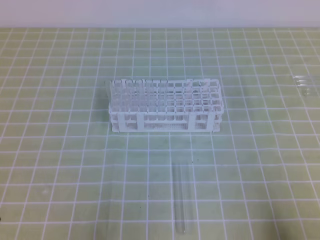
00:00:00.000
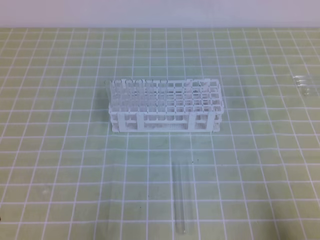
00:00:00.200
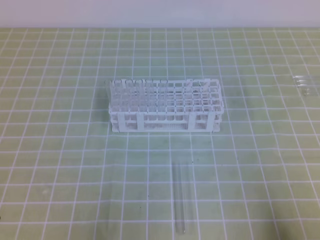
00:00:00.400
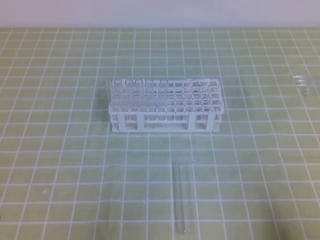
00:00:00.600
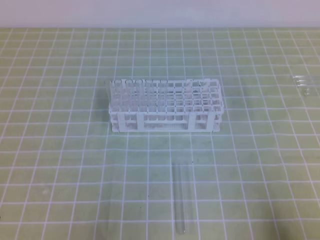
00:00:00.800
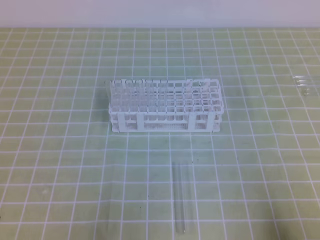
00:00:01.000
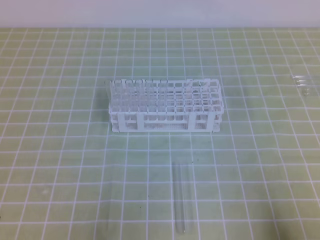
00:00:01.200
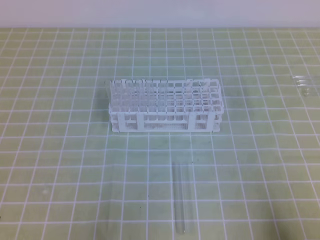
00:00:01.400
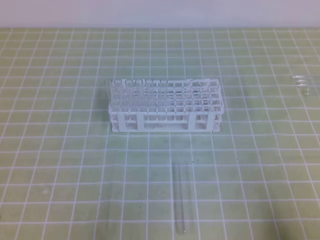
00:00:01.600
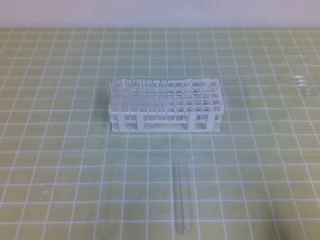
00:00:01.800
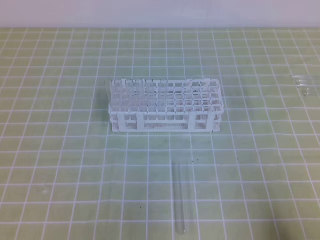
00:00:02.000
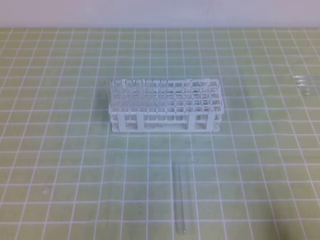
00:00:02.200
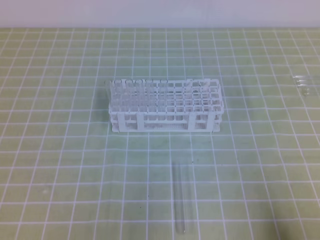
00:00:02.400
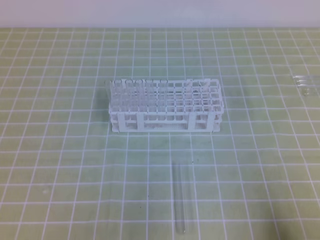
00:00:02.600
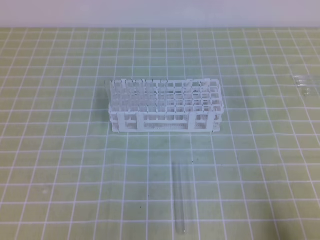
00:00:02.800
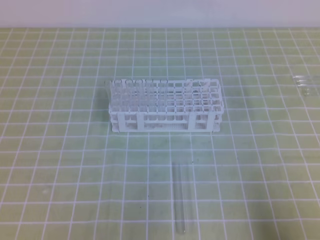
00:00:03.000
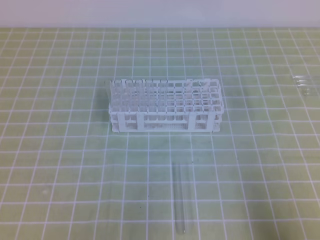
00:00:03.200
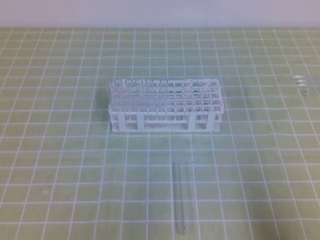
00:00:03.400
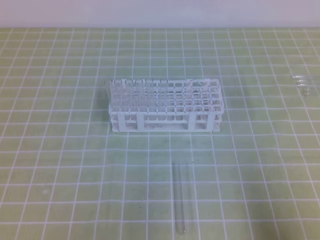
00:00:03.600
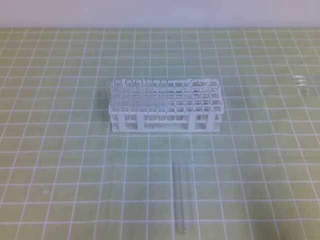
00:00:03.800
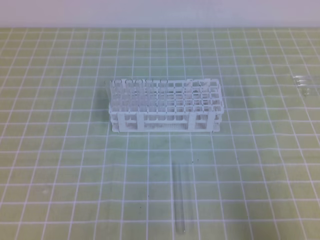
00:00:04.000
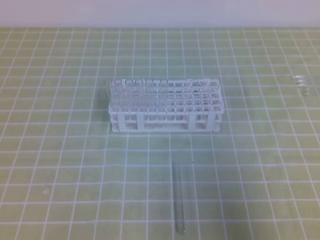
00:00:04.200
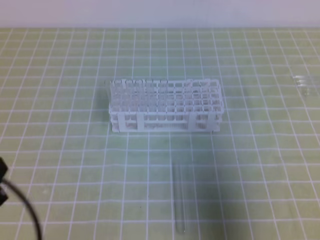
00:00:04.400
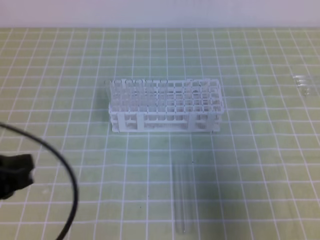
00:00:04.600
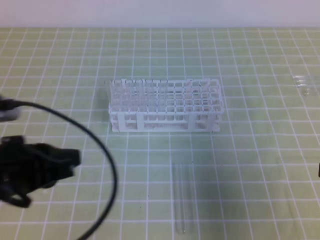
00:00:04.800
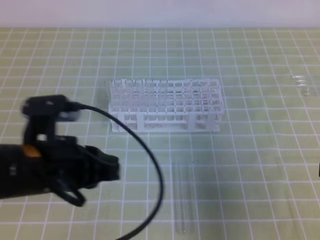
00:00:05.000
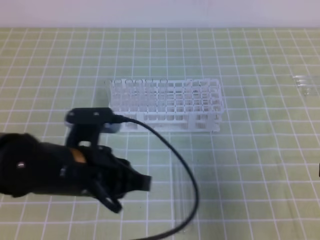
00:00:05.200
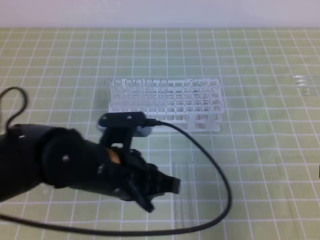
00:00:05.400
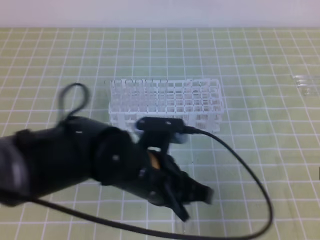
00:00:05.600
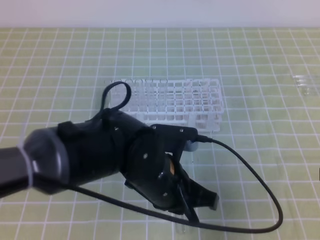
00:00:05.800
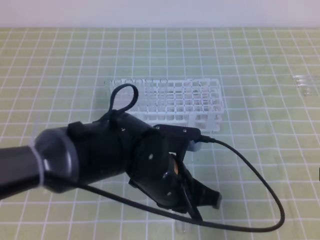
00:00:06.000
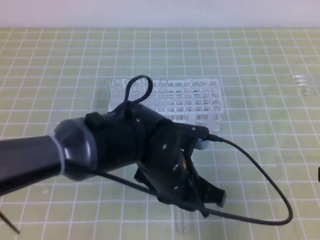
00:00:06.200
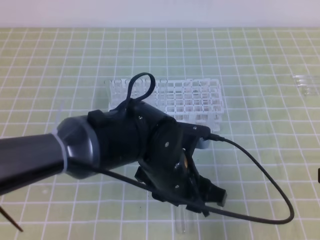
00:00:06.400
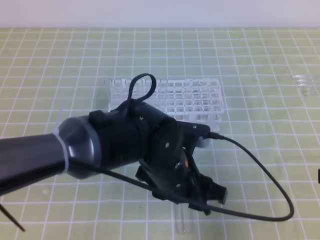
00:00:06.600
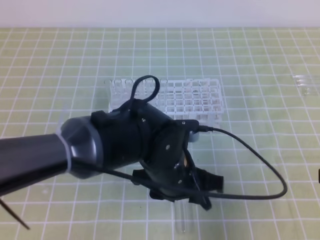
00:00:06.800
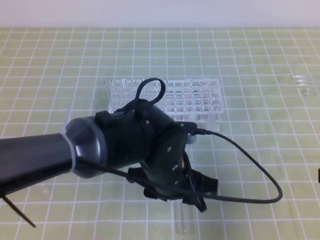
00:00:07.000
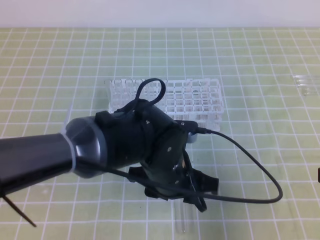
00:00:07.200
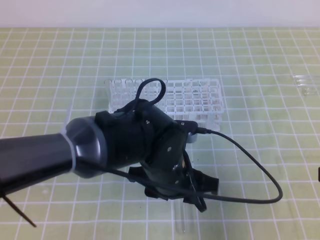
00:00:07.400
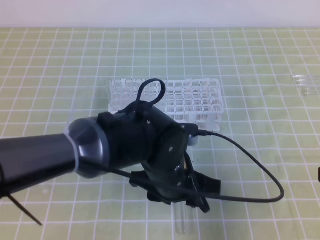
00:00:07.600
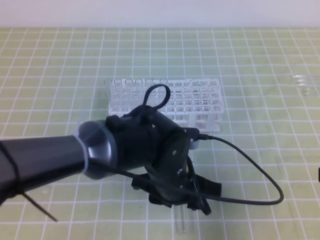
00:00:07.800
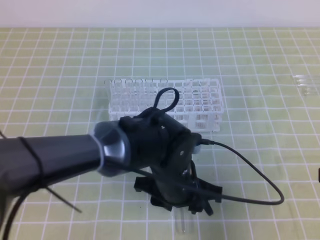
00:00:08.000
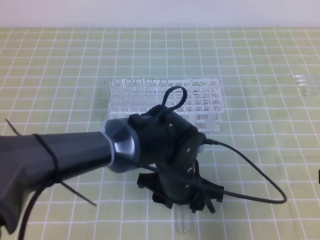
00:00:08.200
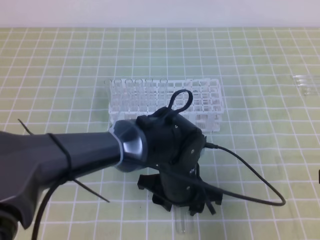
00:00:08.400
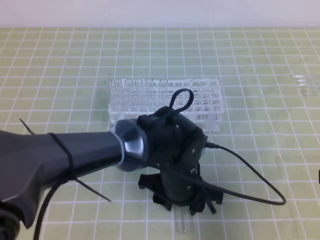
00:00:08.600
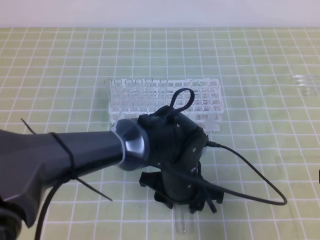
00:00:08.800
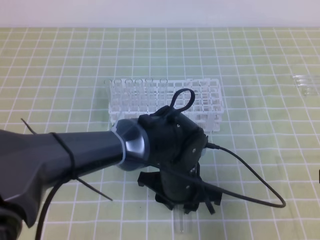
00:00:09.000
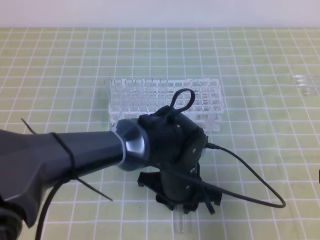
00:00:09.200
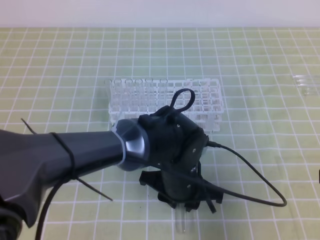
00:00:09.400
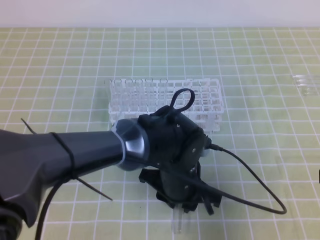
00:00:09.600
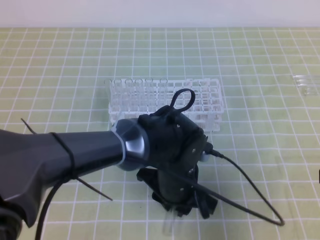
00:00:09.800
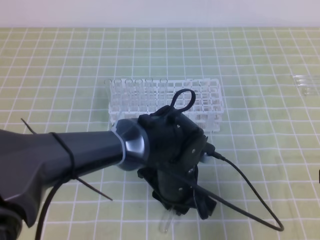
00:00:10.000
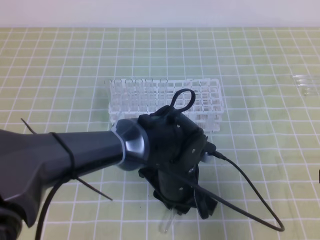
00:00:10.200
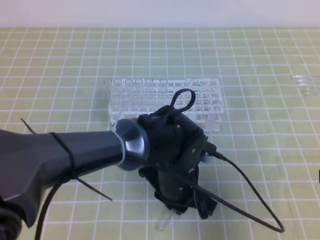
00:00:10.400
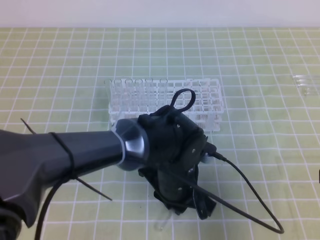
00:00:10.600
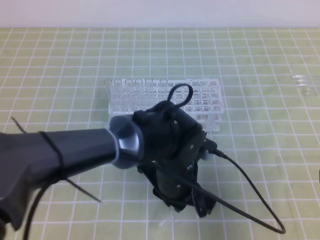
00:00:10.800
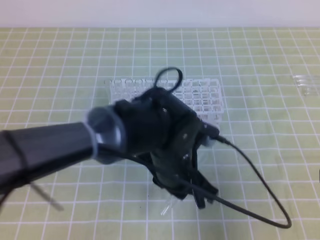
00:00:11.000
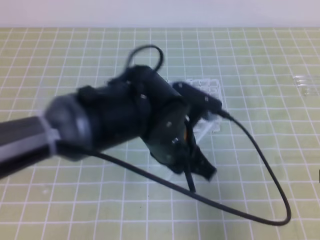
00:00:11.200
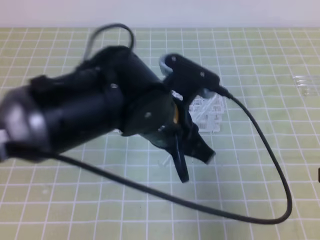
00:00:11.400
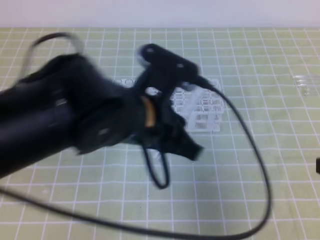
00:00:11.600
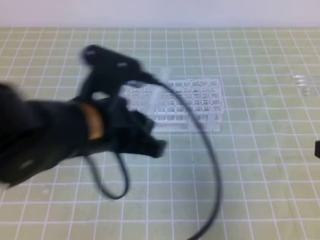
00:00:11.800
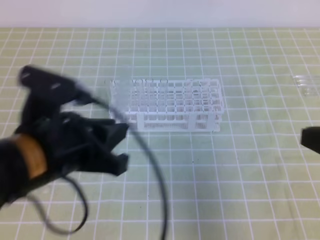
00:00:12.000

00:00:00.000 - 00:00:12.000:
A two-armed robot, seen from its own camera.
00:00:00.000 - 00:00:01.600: The two grippers keep their place.
00:00:03.000 - 00:00:04.400: The left gripper travels upward by approximately 5 cm; the right gripper goes some 10 cm upward and forward.
00:00:04.400 - 00:00:06.000: The left gripper goes some 30 cm to the right and forward.
00:00:06.000 - 00:00:07.600: The left gripper opens up.
00:00:07.600 - 00:00:09.000: There are only small adjustments of the grippers.
00:00:09.000 - 00:00:10.400: The left gripper closes.
00:00:10.400 - 00:00:12.000: The left gripper travels to the left, upward and backward by about 20 cm.

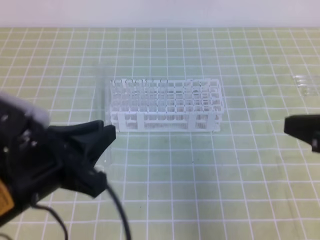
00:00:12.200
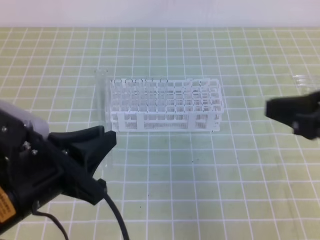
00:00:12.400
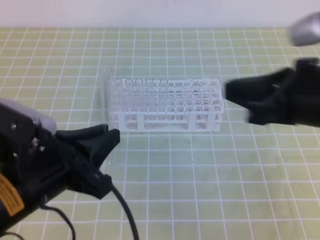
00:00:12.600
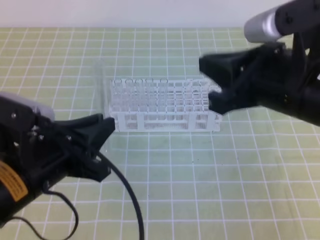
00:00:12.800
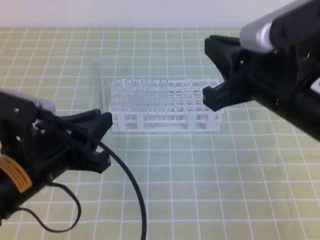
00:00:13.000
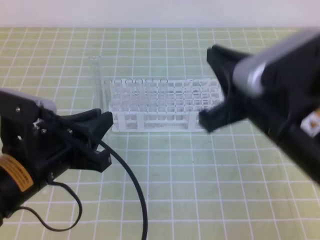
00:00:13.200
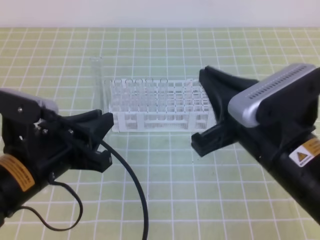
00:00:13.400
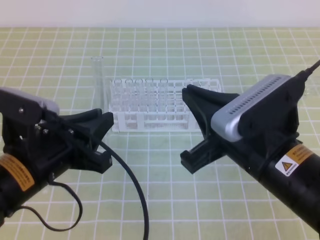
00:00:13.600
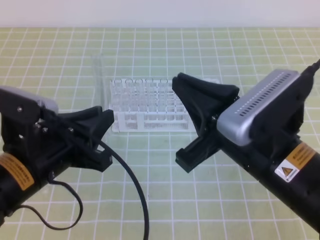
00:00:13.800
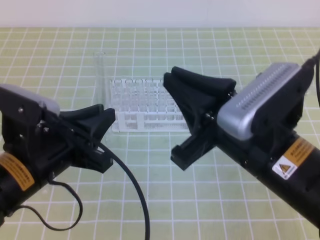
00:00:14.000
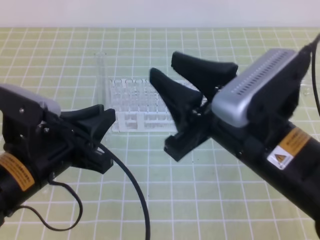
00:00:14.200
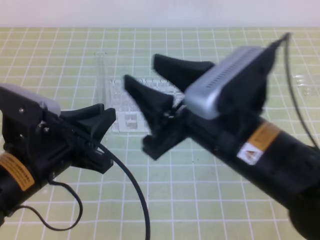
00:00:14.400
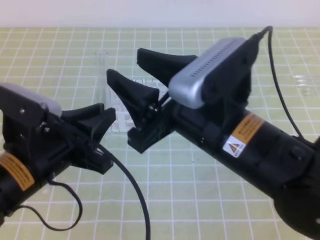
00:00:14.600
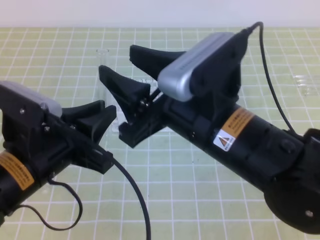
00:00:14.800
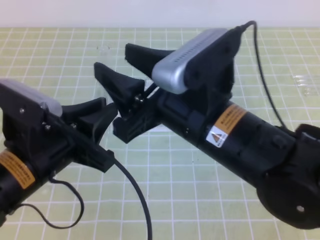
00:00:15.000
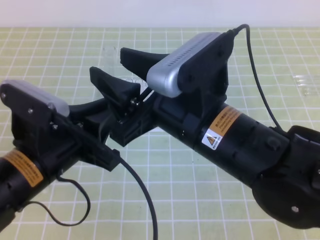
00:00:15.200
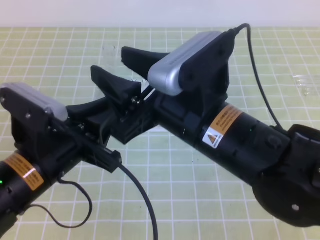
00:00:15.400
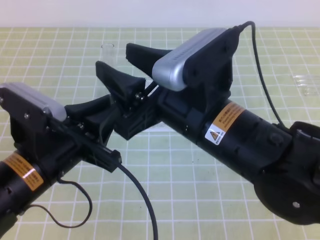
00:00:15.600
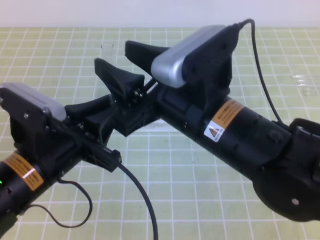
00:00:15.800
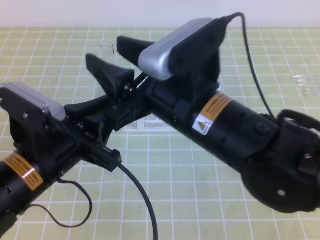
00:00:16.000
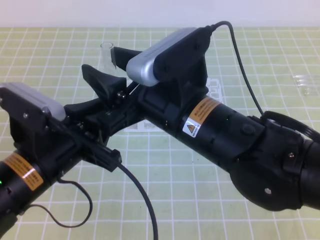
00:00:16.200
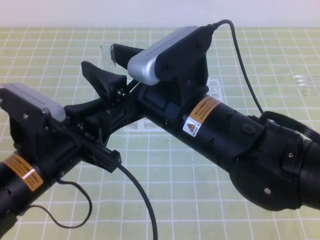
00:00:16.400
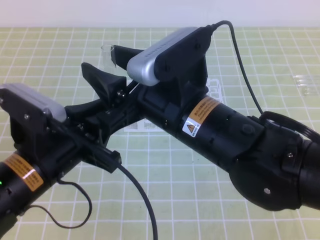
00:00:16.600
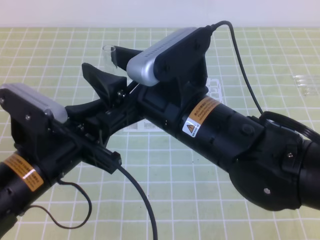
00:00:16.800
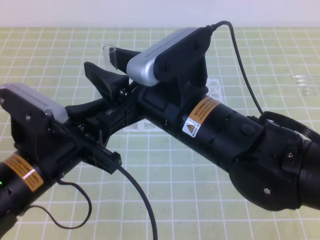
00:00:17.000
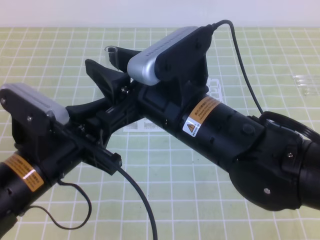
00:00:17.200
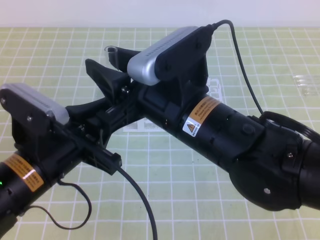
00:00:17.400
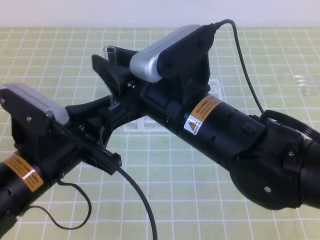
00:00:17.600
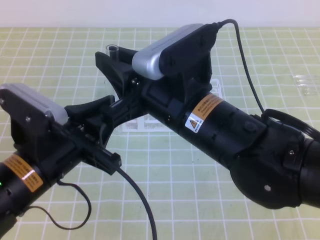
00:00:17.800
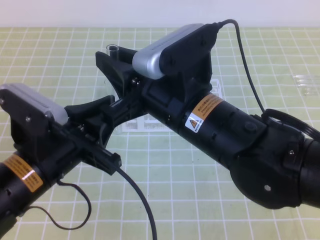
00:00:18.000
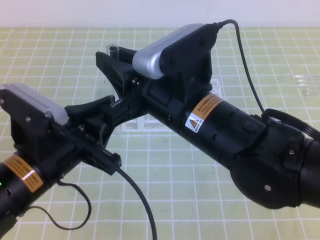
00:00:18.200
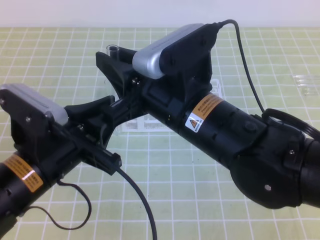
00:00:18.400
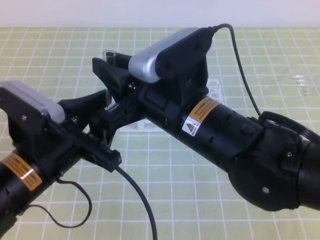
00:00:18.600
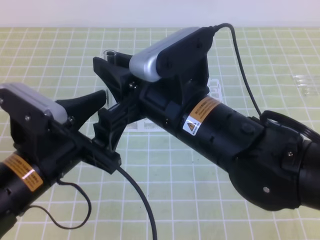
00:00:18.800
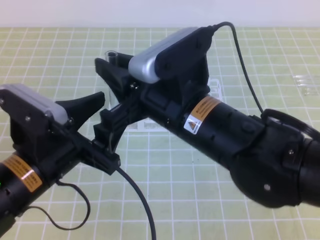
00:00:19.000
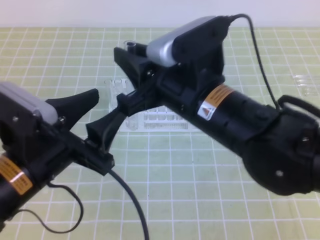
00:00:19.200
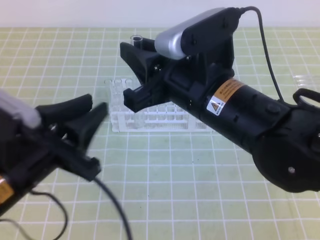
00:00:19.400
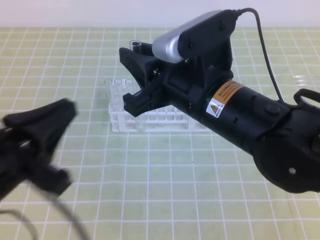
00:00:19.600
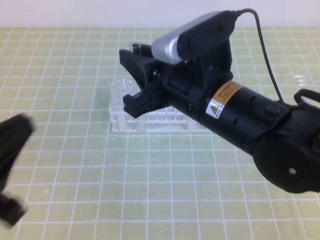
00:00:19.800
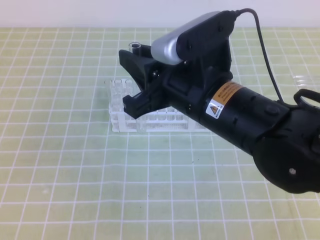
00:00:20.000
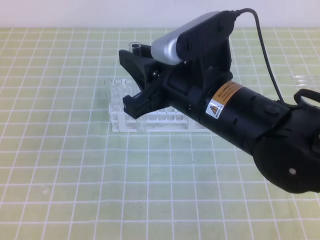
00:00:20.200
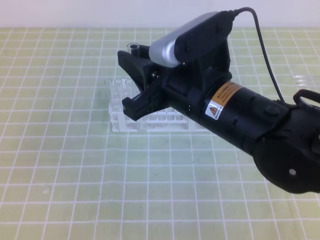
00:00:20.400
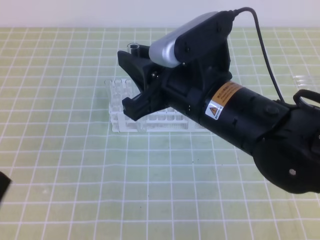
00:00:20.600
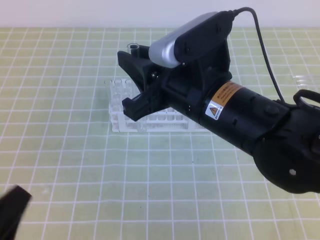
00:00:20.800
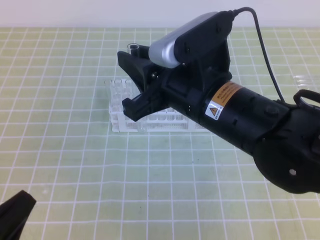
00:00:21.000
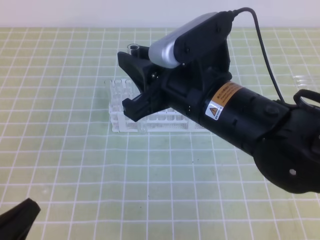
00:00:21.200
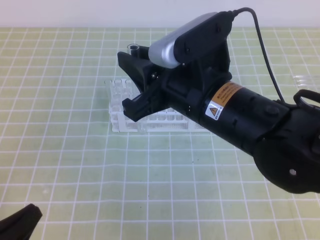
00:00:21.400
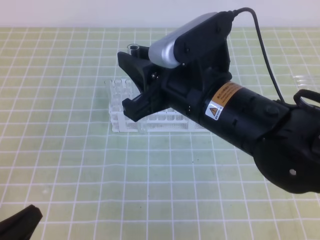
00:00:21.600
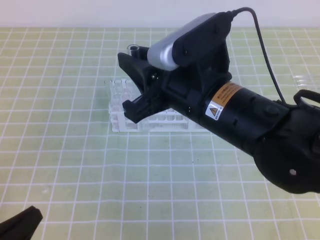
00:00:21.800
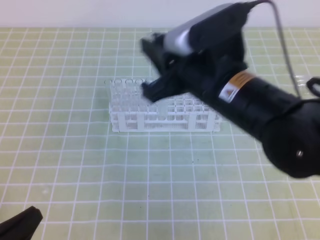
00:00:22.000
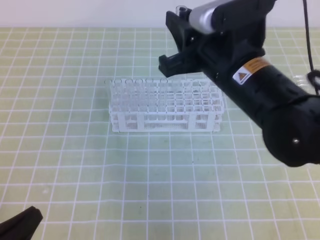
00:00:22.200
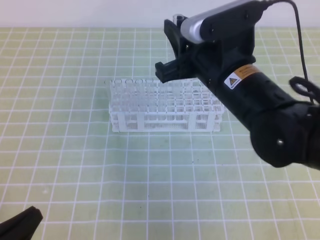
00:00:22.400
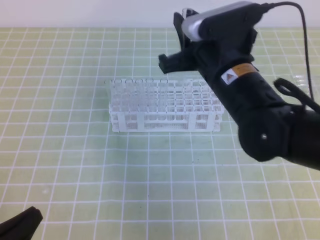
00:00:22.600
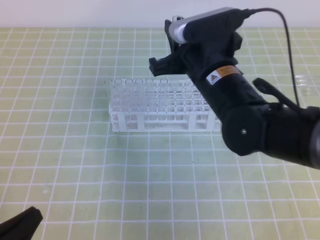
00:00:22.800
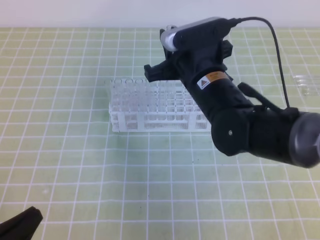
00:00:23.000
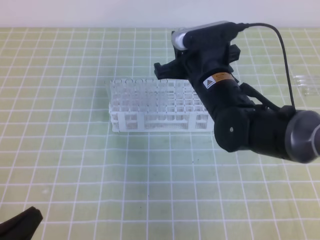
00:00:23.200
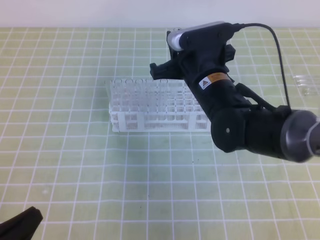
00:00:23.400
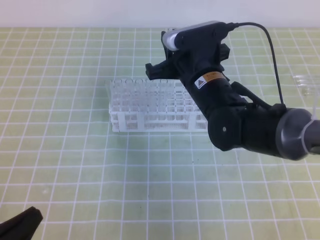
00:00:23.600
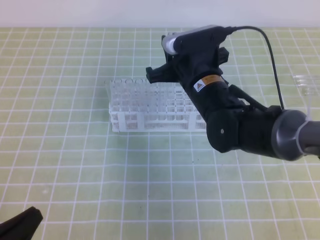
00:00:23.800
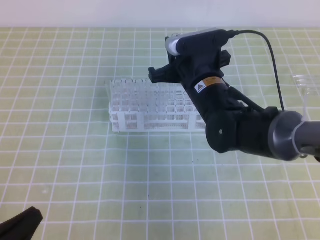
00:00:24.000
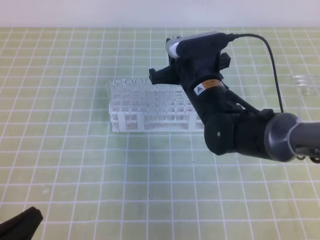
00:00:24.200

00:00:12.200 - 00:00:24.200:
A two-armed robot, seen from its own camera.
00:00:12.200 - 00:00:13.800: The right gripper moves to the left, about 15 cm.
00:00:13.800 - 00:00:15.200: The right gripper shifts some 5 cm to the left, and opens its fingers.
00:00:16.600 - 00:00:18.200: The right gripper closes.
00:00:18.200 - 00:00:19.800: The left gripper travels backward and to the left by about 10 cm, and opens, then closes again.
00:00:19.800 - 00:00:21.200: The left gripper goes approximately 10 cm downward.
00:00:21.200 - 00:00:22.600: The right gripper shifts approximately 5 cm forward.
00:00:22.600 - 00:00:24.200: The right gripper shifts approximately 10 cm downward and forward.
